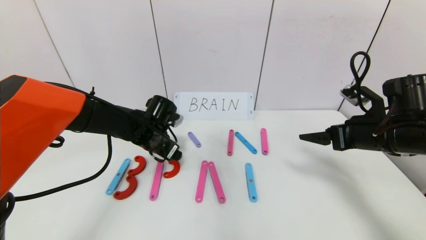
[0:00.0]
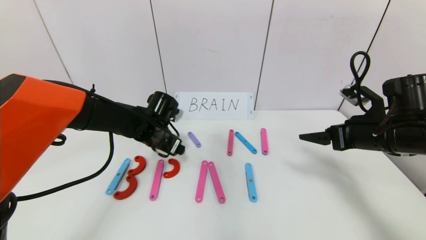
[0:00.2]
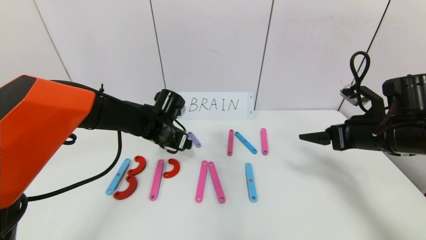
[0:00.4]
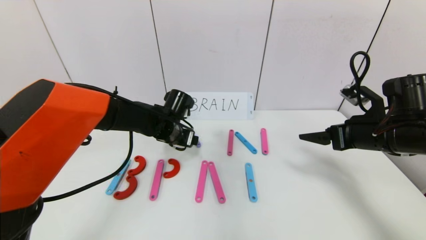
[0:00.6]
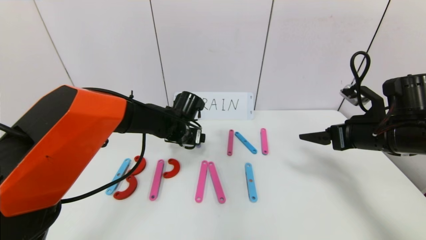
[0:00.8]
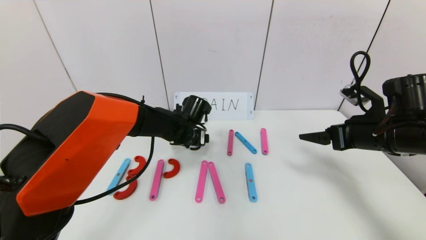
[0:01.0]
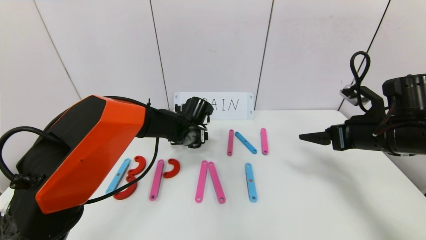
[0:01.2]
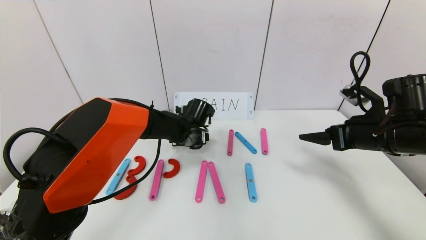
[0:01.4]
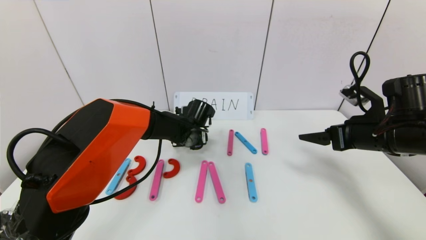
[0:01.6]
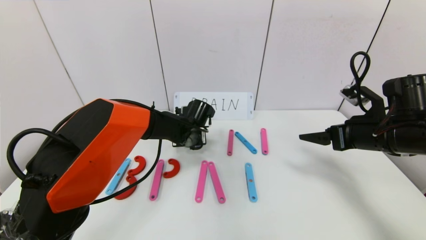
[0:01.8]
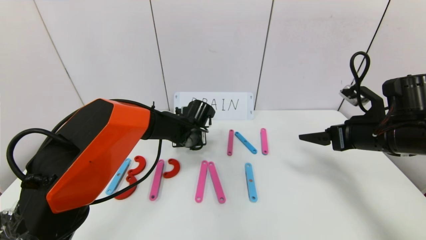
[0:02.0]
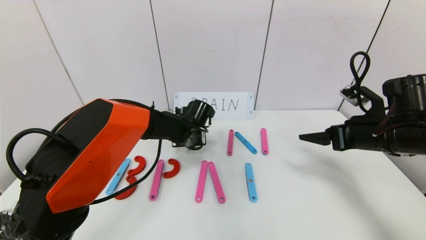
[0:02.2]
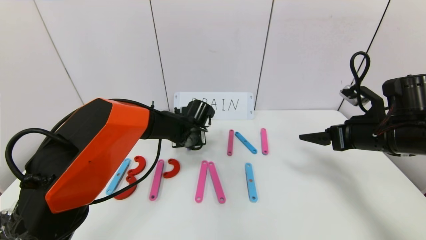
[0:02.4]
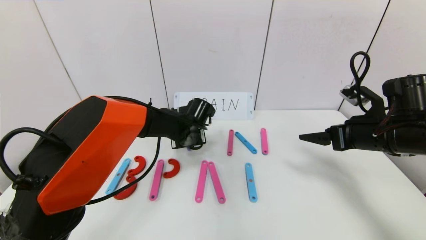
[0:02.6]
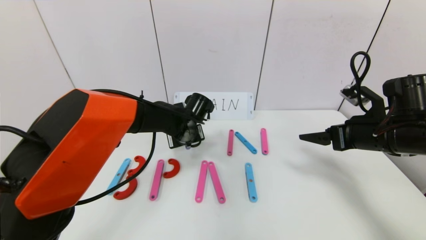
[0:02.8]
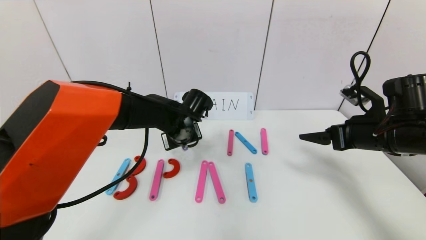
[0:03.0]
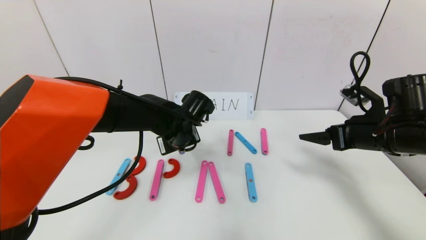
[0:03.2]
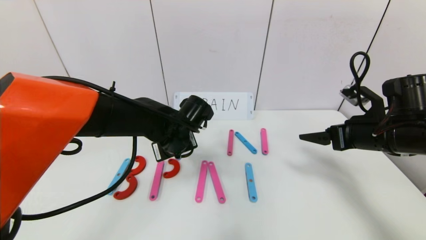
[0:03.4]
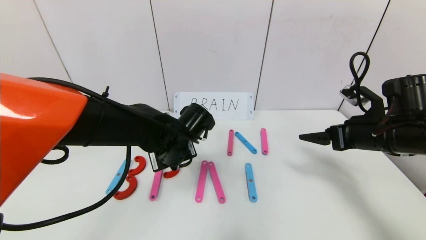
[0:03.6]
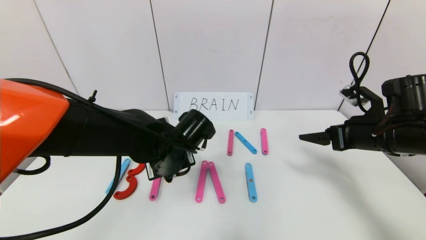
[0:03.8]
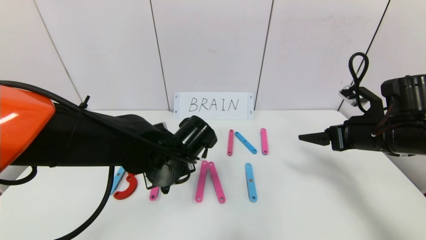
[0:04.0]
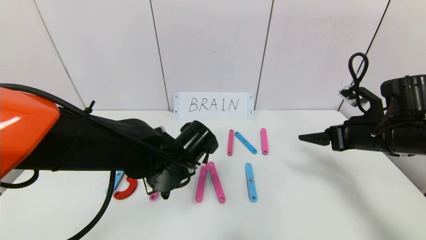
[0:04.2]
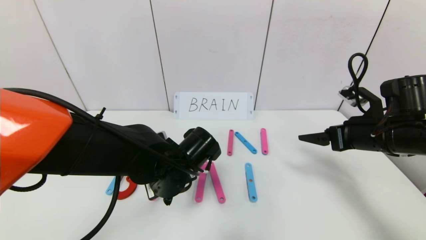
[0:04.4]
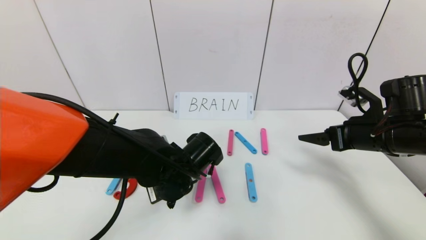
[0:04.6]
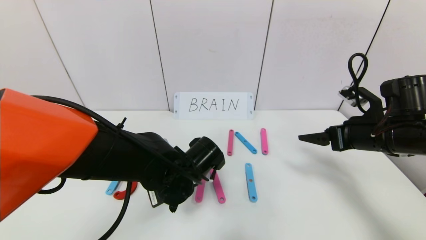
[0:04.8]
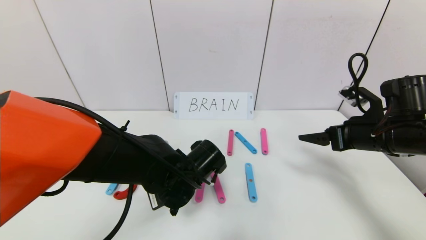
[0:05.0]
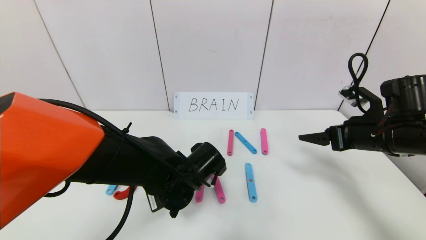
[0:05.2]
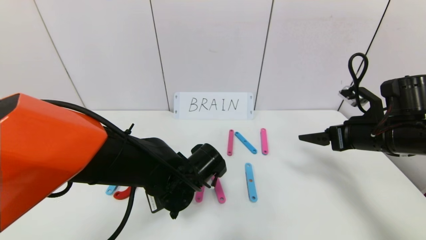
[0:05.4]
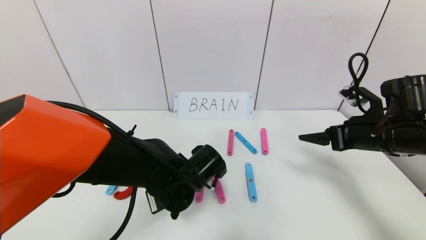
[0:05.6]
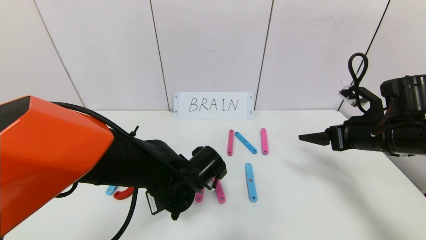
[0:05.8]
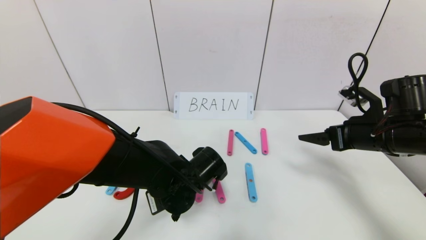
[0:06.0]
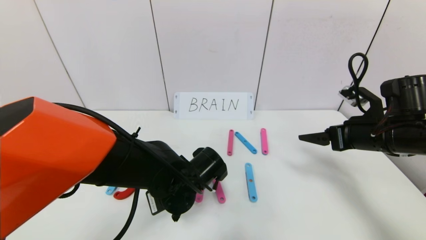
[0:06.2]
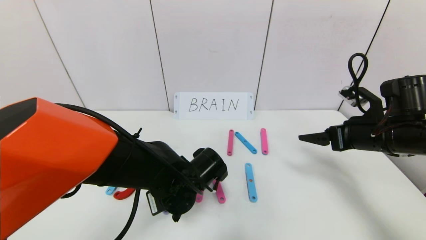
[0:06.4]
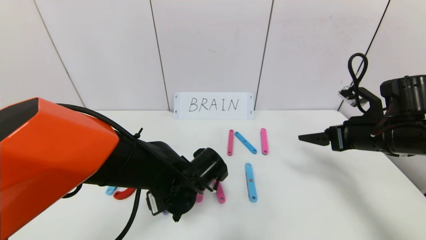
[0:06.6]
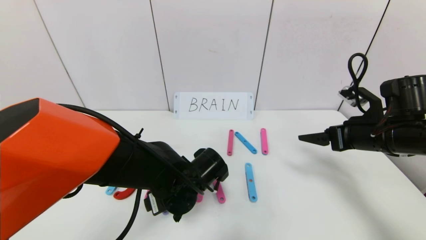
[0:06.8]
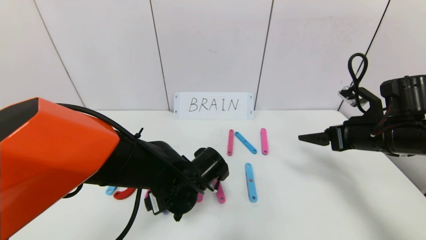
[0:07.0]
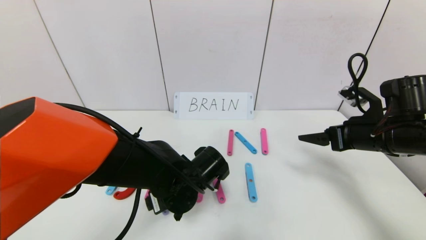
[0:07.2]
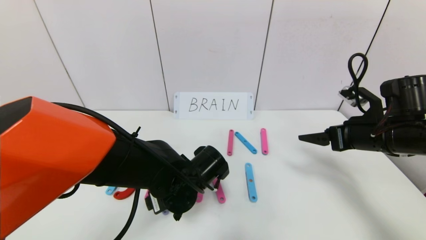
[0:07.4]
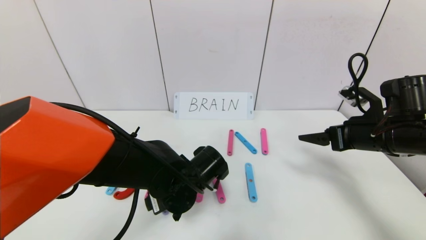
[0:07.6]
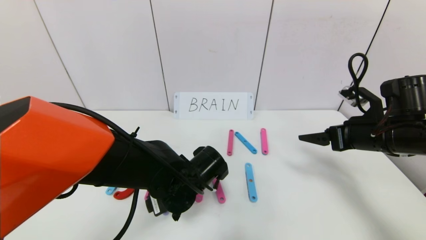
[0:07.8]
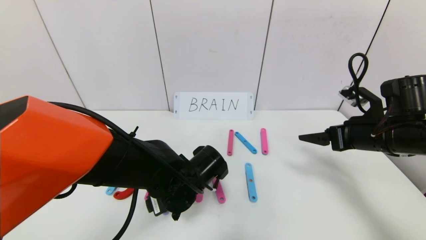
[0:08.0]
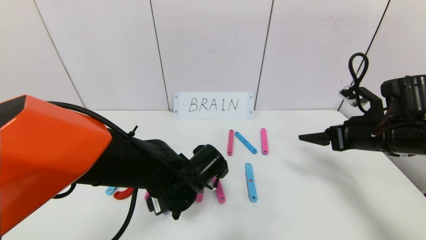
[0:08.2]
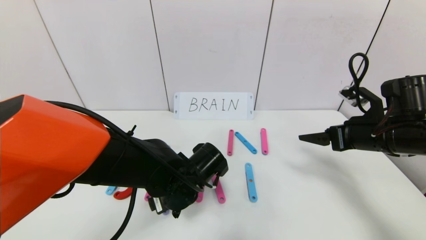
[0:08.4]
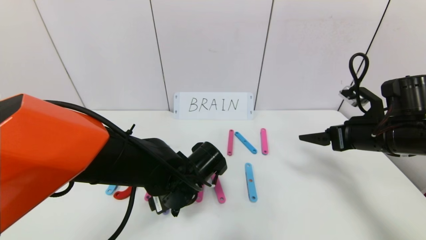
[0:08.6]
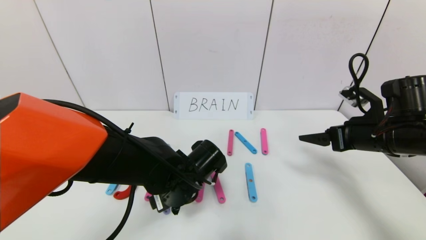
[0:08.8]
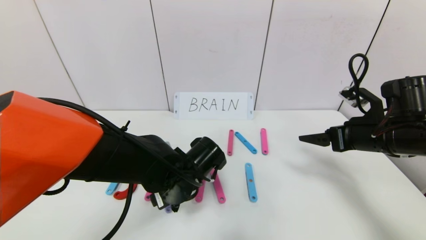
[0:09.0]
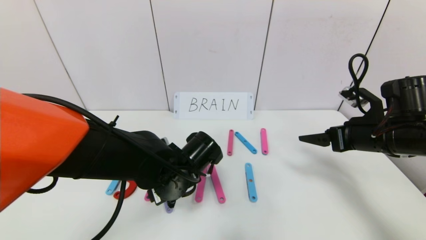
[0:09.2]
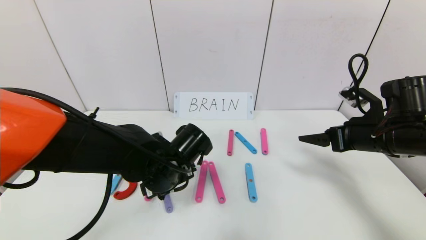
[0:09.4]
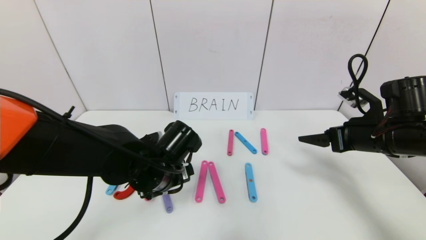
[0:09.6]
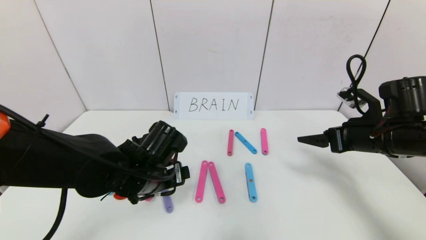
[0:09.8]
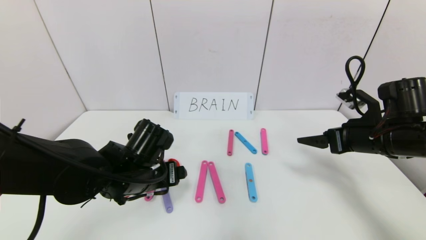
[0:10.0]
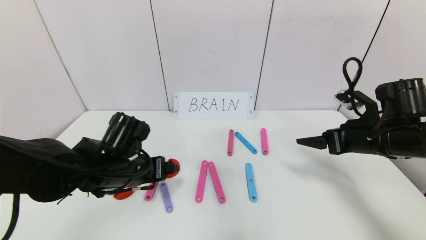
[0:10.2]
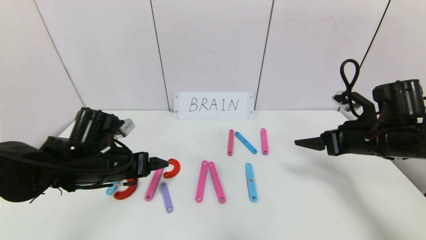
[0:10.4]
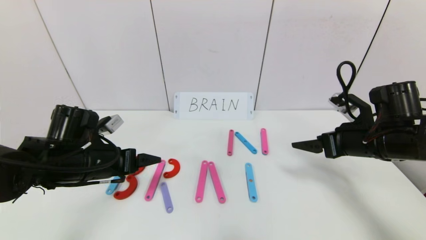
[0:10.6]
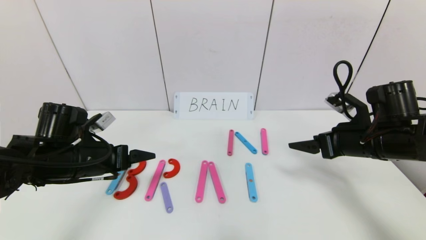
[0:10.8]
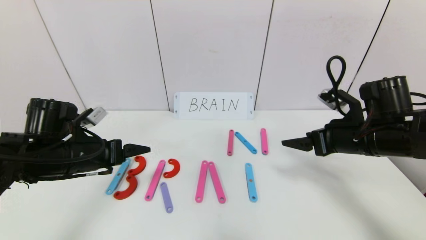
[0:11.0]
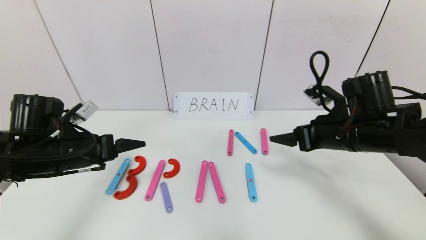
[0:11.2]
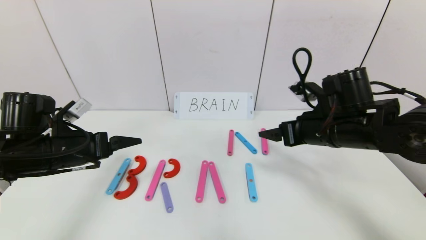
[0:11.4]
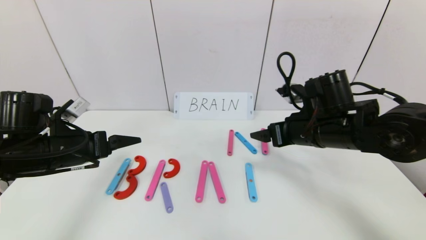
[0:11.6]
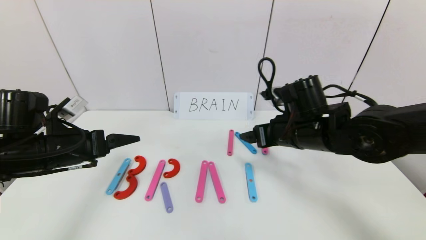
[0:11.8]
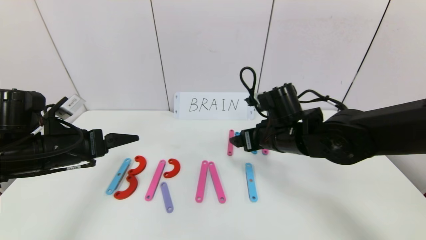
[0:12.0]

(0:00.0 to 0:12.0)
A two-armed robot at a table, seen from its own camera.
Task of the whole recording: rearrange the word baai as brain.
Step, 0:00.0 - 0:09.0: Place the character R between first character B and third character A.
0:00.0 - 0:01.6: The left gripper shifts about 10 cm to the right.
0:01.6 - 0:03.0: The left gripper travels upward by some 5 cm, and closes.
0:03.0 - 0:04.4: The left gripper is displaced backward by approximately 10 cm.
0:04.4 - 0:06.0: There are only small adjustments of the grippers.
0:06.0 - 0:07.6: The left gripper opens up.
0:07.6 - 0:09.0: There are only small adjustments of the grippers.
0:09.0 - 0:10.4: The left gripper heads to the left, covering some 15 cm.
0:10.4 - 0:12.0: The right gripper shifts roughly 15 cm to the left. The left gripper heads to the left, covering roughly 5 cm.

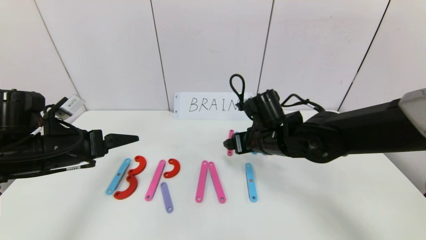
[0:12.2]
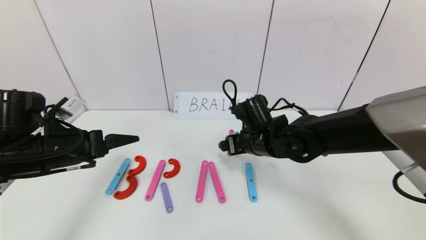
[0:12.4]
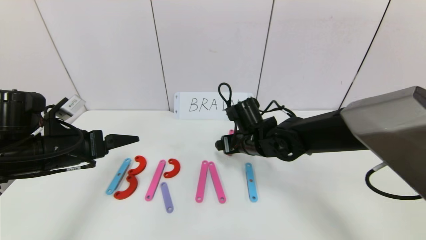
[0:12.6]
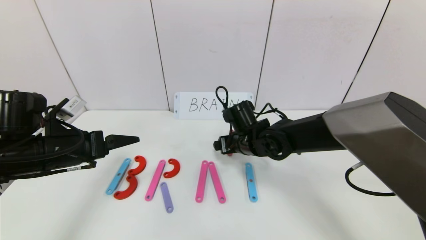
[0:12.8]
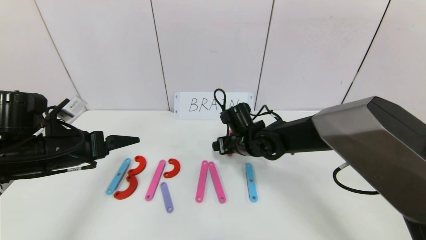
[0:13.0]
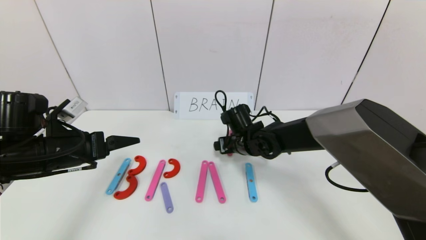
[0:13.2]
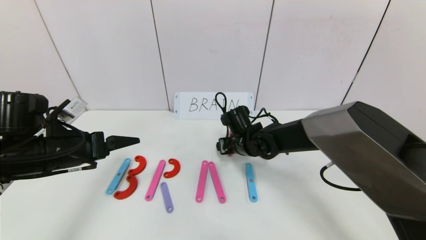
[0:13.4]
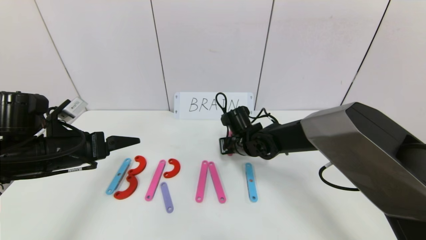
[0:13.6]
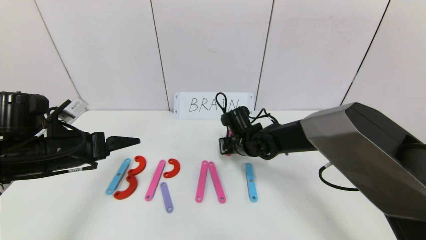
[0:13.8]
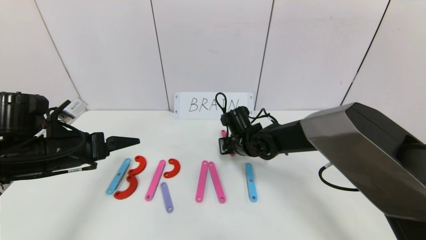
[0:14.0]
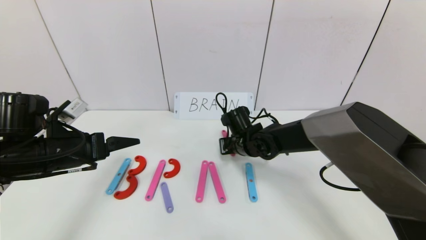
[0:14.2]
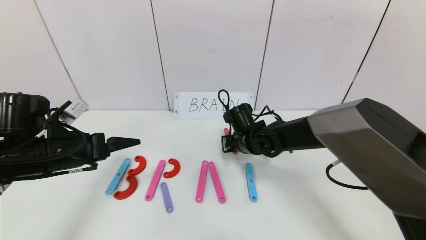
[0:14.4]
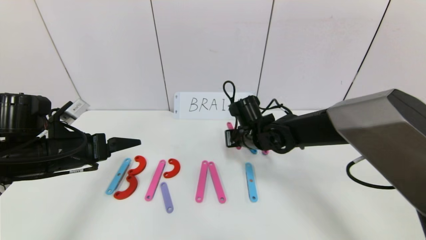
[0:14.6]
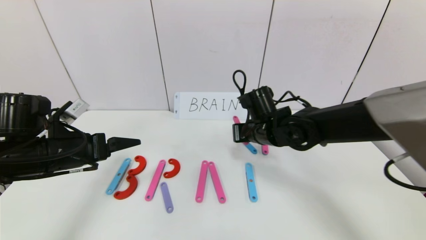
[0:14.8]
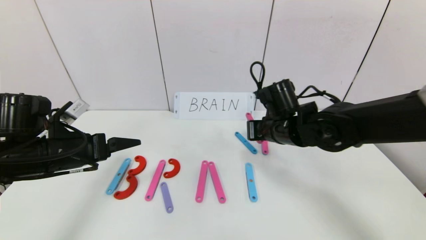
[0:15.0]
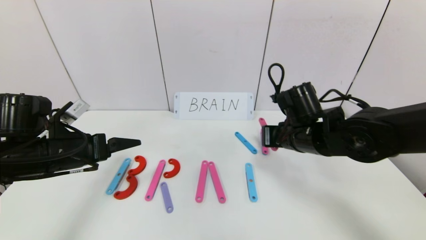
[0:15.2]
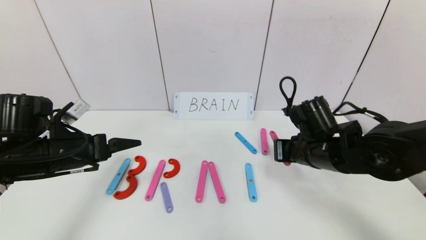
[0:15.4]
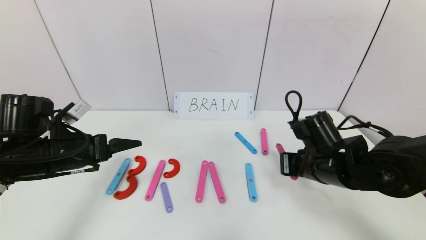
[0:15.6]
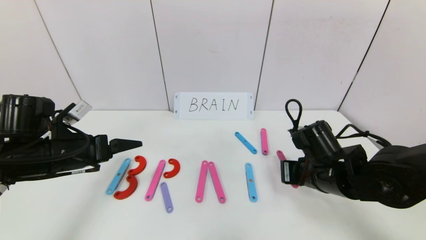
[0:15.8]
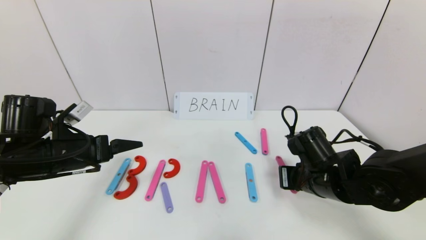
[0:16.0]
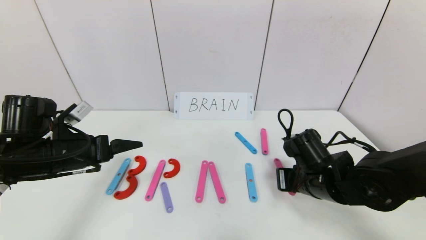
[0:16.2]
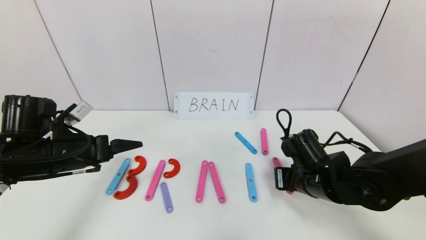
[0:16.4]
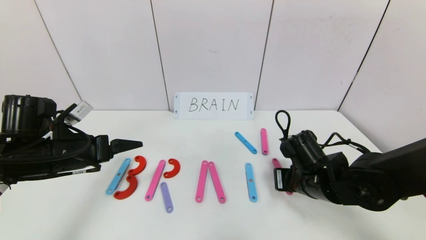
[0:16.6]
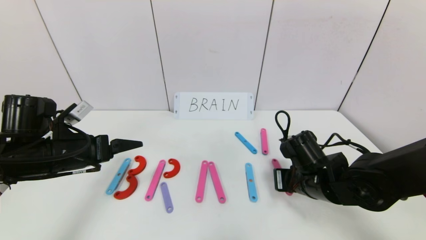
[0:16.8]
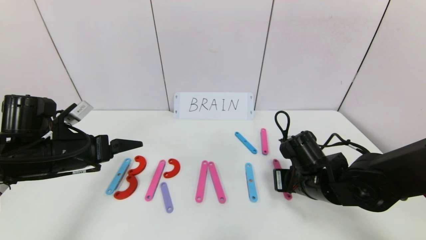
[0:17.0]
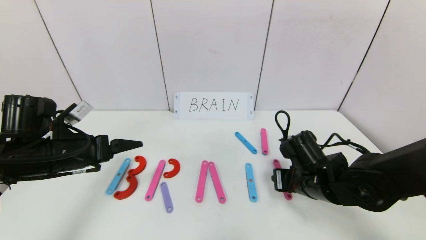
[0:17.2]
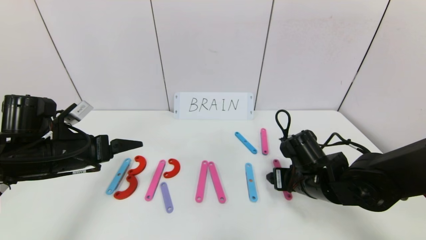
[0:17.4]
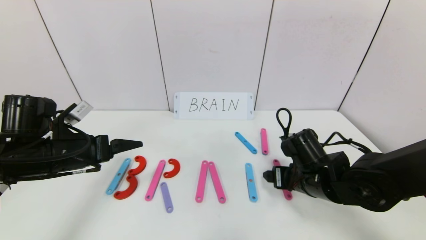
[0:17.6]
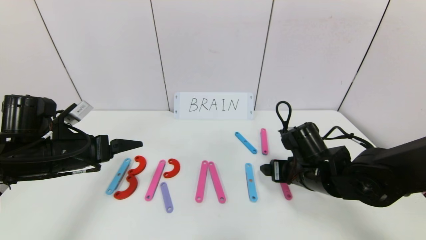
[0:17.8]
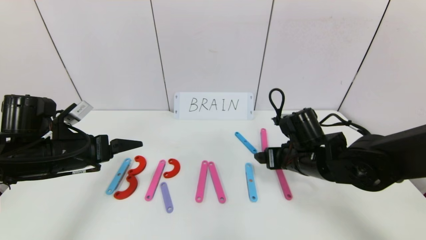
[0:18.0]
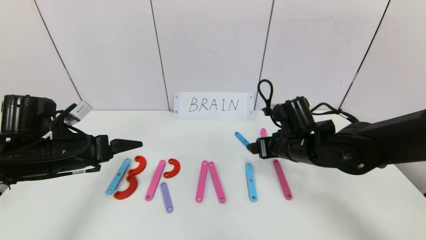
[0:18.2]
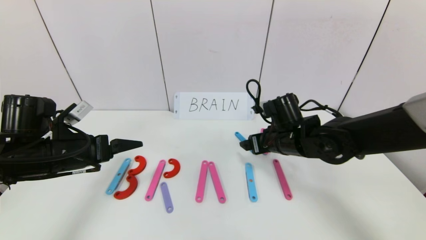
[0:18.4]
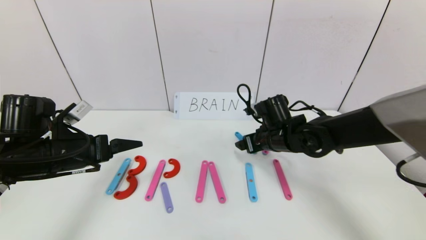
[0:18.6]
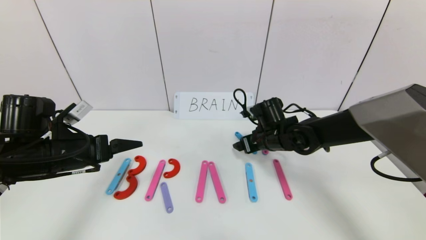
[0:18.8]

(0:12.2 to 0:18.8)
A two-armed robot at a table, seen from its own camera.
Task of the whole recording: rearrange the word baai as brain.
0:12.2 - 0:13.8: The right gripper goes roughly 10 cm downward and forward, and closes.
0:13.8 - 0:15.4: The right gripper travels to the right, backward and upward by roughly 20 cm.
0:15.4 - 0:17.2: The right gripper travels downward by approximately 5 cm, and opens up.
0:17.2 - 0:18.8: The right gripper is displaced forward by roughly 10 cm, and opens up.
